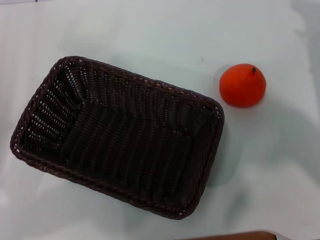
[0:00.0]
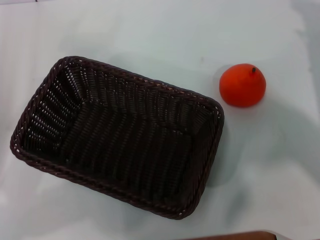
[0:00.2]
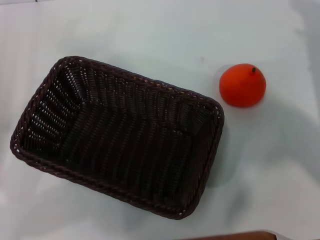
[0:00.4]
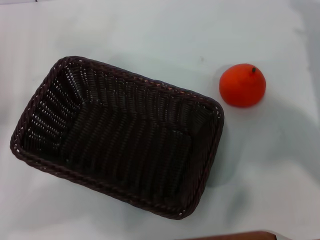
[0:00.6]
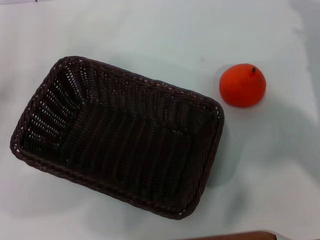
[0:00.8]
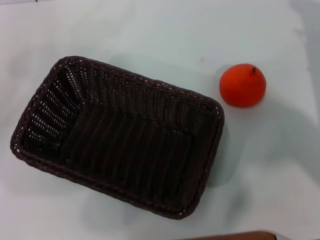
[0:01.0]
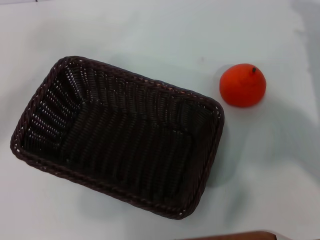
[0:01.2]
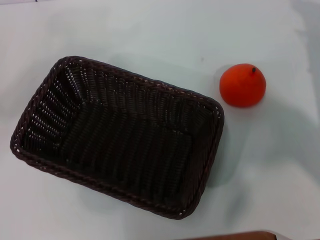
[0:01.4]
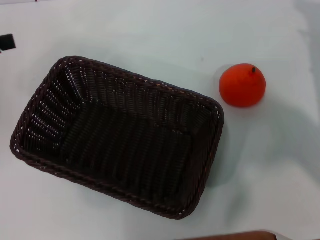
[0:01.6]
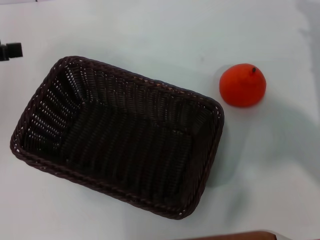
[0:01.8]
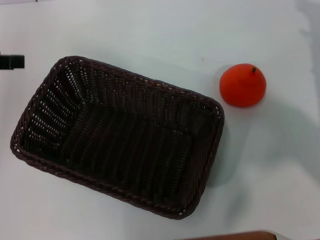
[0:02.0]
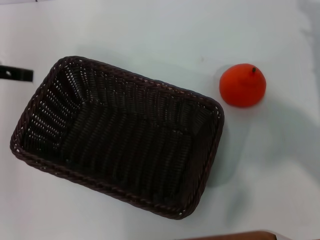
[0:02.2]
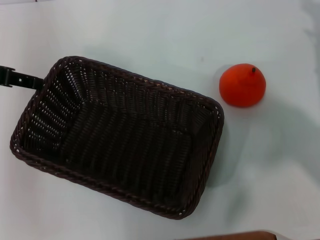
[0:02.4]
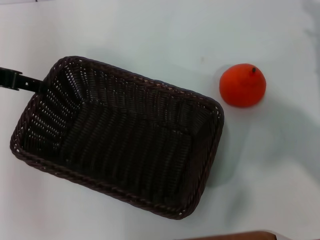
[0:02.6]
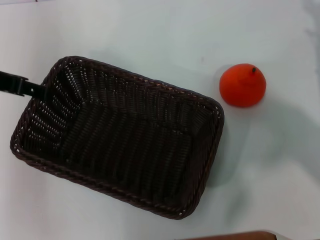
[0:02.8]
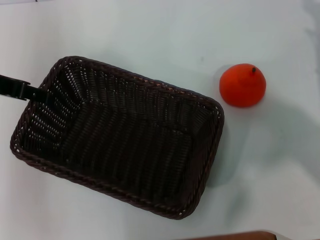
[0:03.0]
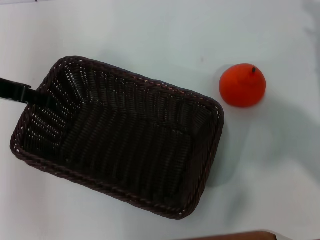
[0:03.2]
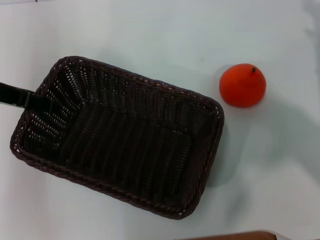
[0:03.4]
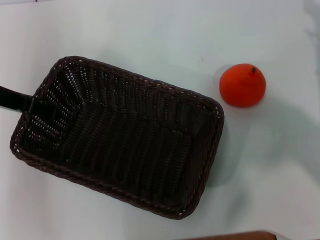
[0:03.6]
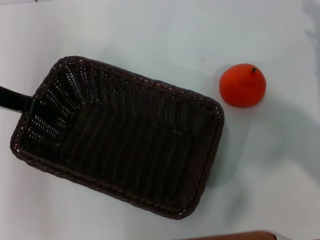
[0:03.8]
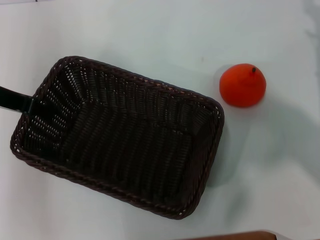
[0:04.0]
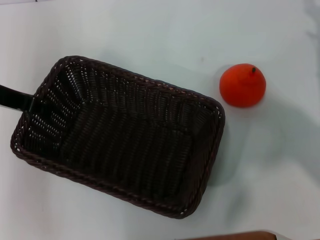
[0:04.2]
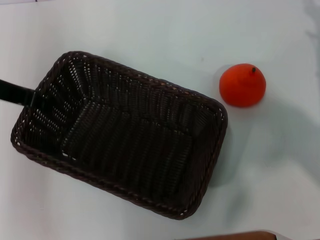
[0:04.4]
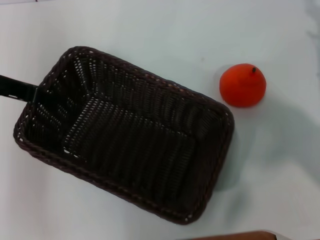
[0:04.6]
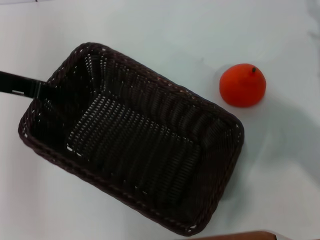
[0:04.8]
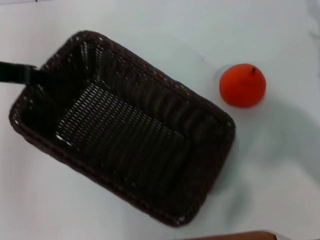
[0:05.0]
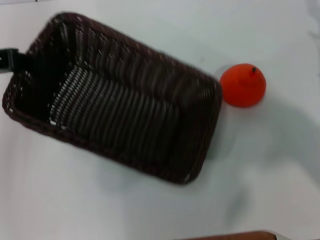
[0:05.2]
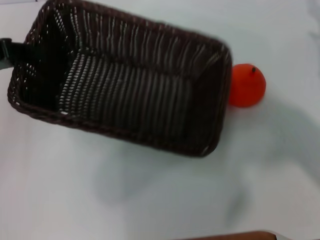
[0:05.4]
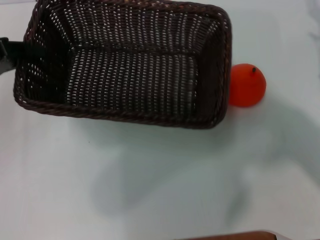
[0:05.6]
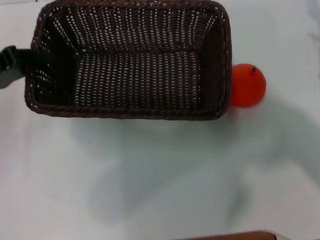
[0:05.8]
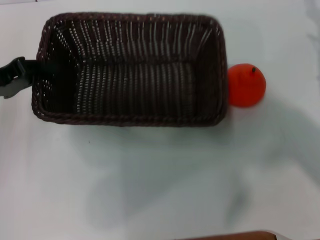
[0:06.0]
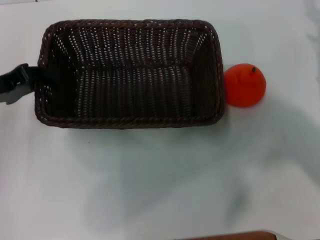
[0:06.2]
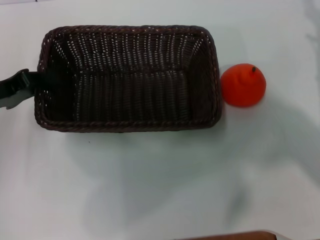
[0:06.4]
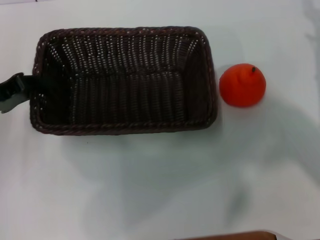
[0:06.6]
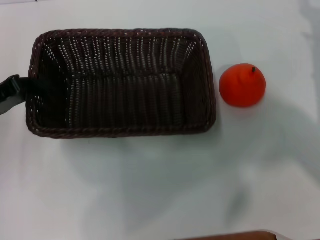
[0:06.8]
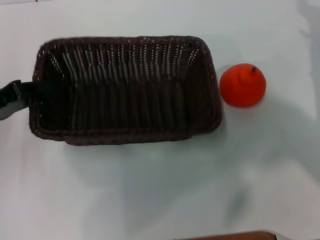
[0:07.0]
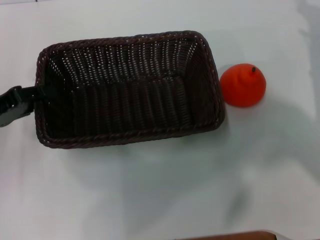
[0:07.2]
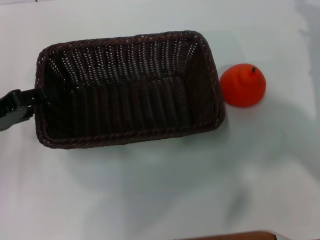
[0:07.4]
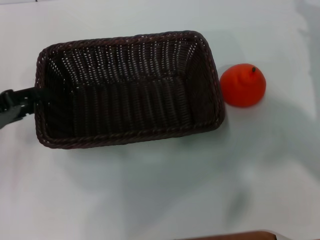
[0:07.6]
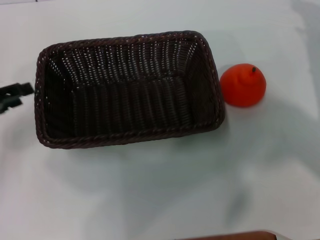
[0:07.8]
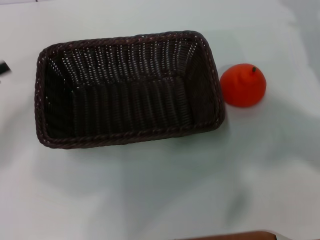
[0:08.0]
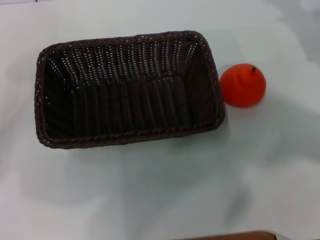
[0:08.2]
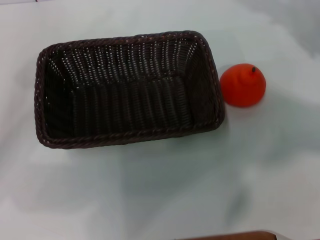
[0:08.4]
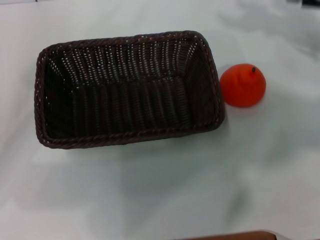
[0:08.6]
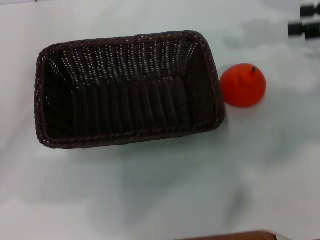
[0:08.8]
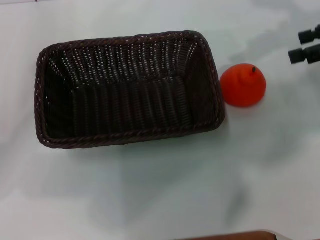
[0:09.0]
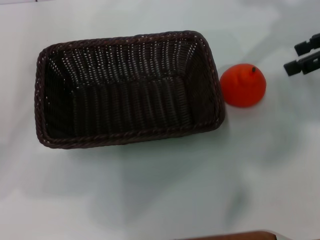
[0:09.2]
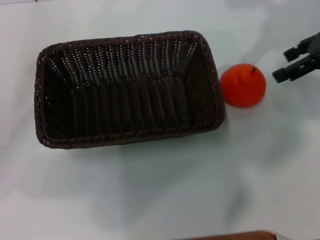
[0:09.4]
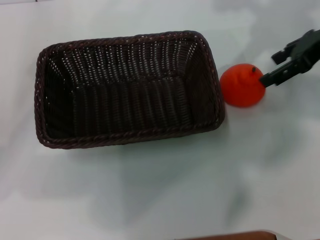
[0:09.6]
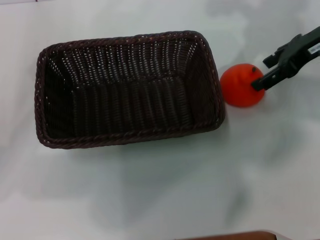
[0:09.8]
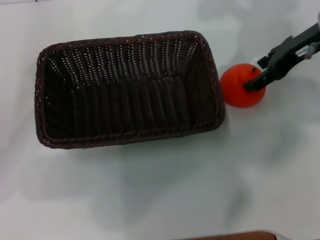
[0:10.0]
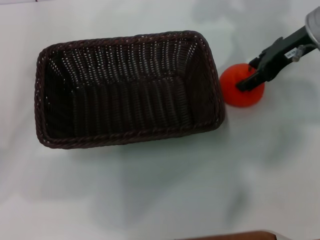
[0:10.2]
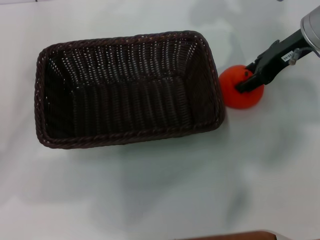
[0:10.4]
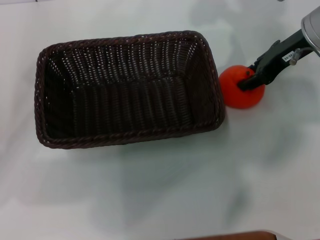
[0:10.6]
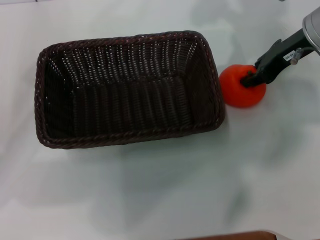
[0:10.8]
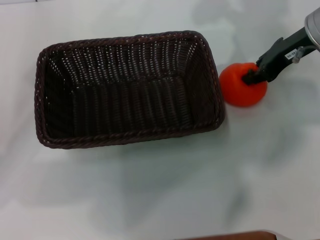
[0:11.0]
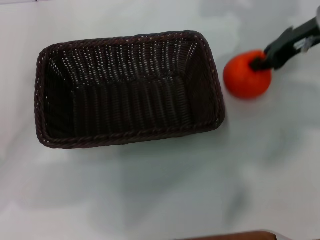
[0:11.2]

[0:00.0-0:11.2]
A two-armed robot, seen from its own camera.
Task of the whole recording: the left gripper pick up the black basket and place it horizontally in the middle of the table, the right gripper pick up the orange and place it into the black basket.
Step, 0:00.0 to 0:05.4: Pick up the dark basket with the left gripper.
Step, 0:05.6 to 0:07.8: Place the dark basket in the center of view with the left gripper.
0:00.0 to 0:01.6: The left gripper travels upward and forward by about 15 cm.
0:01.6 to 0:03.2: The left gripper moves to the right, roughly 10 cm.
0:03.2 to 0:04.8: The left gripper closes up.
0:04.8 to 0:06.4: The left gripper travels downward by roughly 10 cm.
0:06.4 to 0:08.0: The left gripper is displaced to the left by about 5 cm, and opens its fingers.
0:08.0 to 0:09.6: The right gripper travels upward and to the left by some 15 cm.
0:09.6 to 0:11.2: The right gripper closes its fingers.

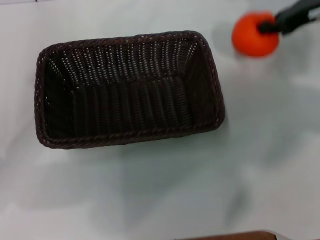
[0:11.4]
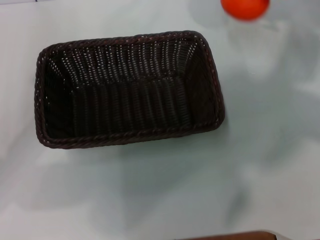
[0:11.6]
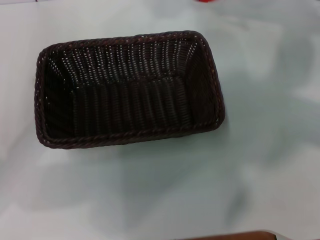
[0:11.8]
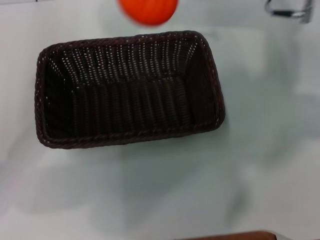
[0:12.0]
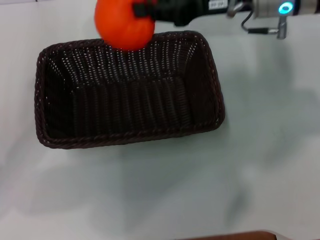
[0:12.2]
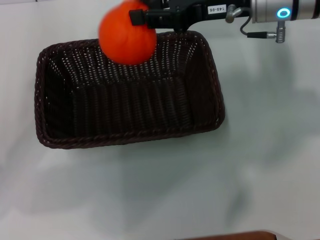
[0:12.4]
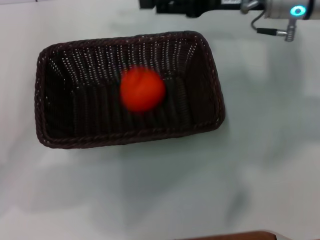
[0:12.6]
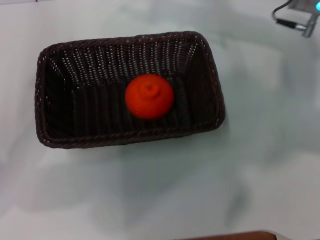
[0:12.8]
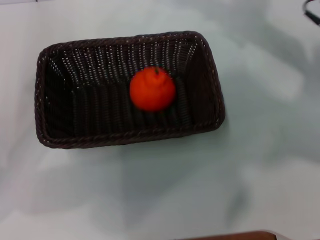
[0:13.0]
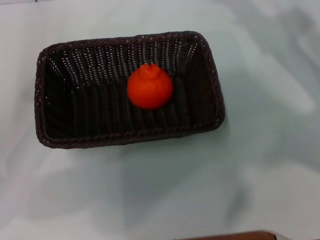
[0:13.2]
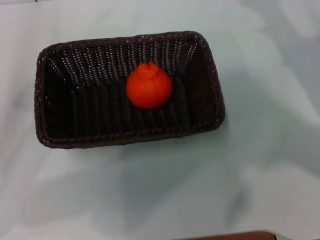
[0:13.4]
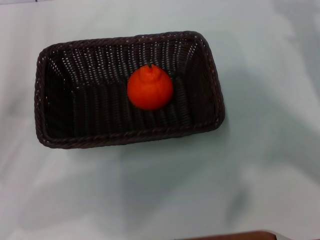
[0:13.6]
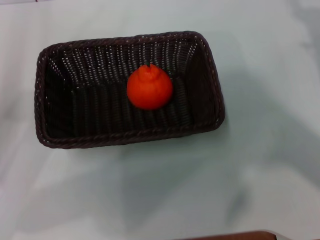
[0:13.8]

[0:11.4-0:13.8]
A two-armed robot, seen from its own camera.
Task of the whole recording: the left gripper pick up the black basket and place it horizontally in the middle of the table, the right gripper pick up the orange and place it into the black basket.
Step, 0:11.4 to 0:12.4: Place the orange into the dark basket with the right gripper.
0:11.4 to 0:12.6: The right gripper moves to the left, approximately 10 cm.
0:12.6 to 0:13.8: The right gripper is displaced to the right, backward and downward by approximately 20 cm, and opens.
